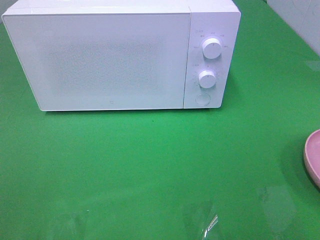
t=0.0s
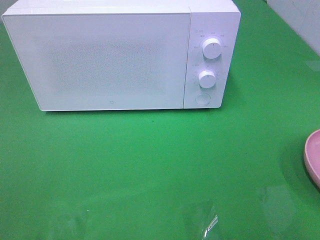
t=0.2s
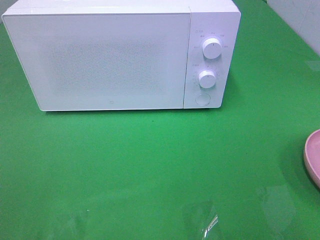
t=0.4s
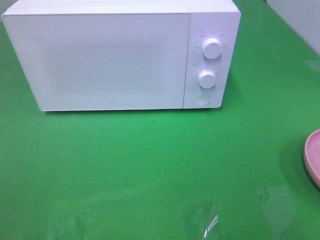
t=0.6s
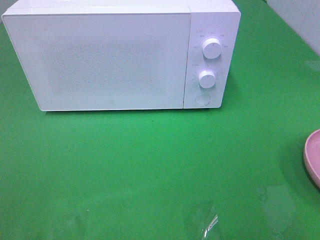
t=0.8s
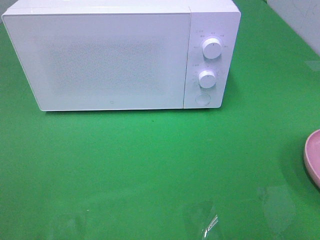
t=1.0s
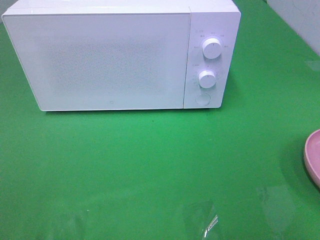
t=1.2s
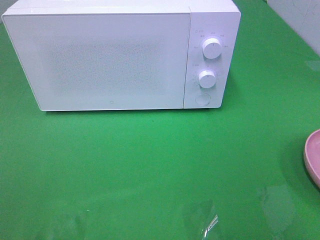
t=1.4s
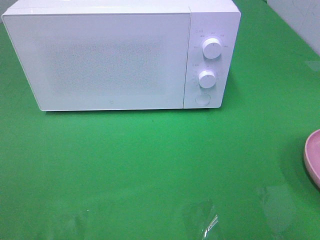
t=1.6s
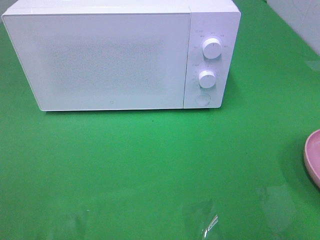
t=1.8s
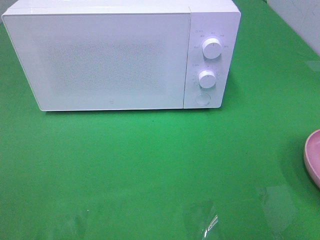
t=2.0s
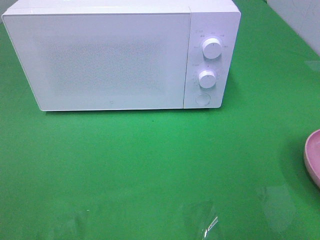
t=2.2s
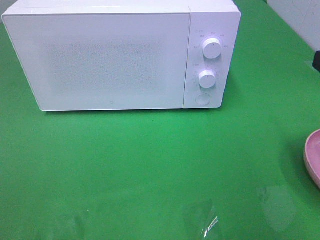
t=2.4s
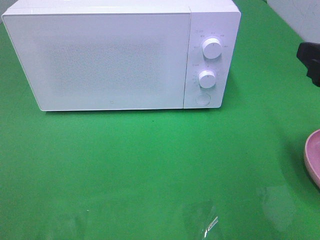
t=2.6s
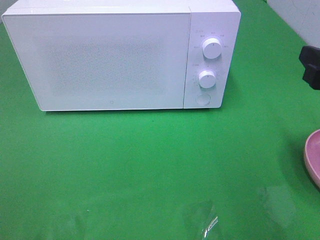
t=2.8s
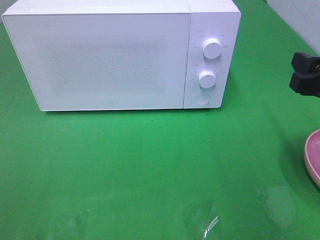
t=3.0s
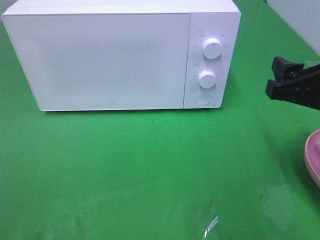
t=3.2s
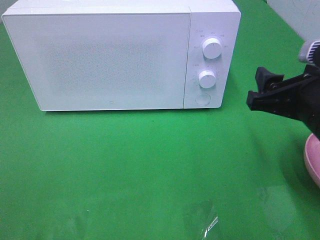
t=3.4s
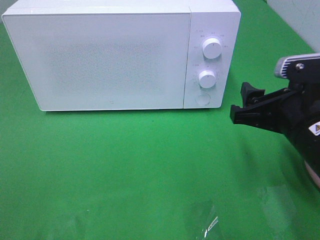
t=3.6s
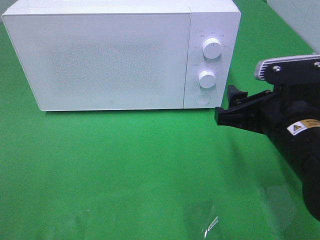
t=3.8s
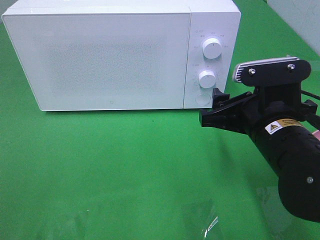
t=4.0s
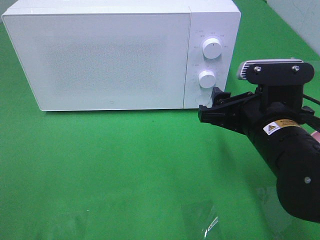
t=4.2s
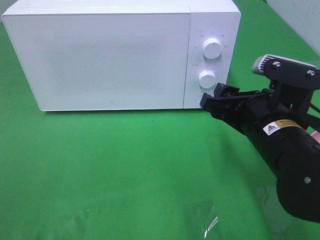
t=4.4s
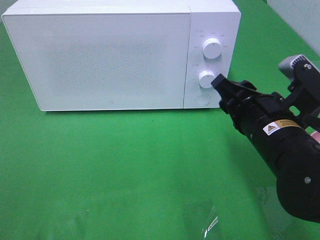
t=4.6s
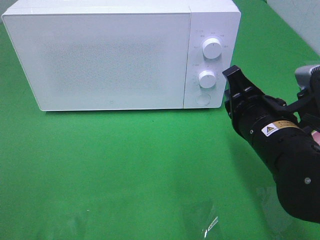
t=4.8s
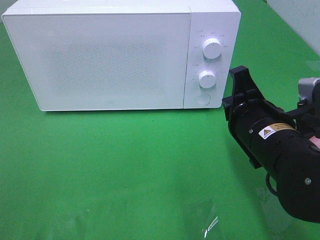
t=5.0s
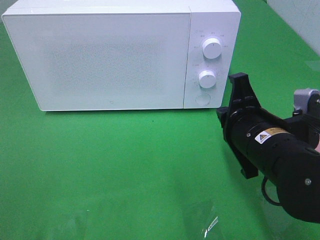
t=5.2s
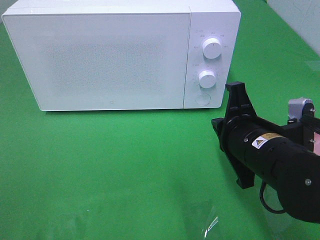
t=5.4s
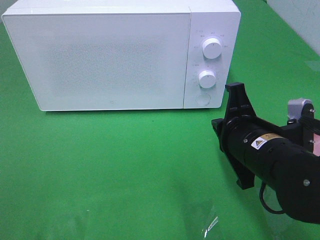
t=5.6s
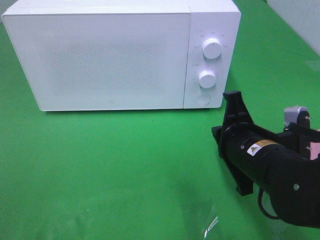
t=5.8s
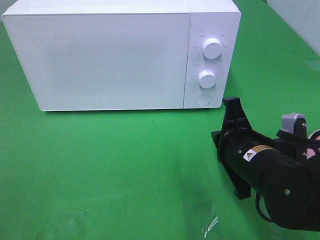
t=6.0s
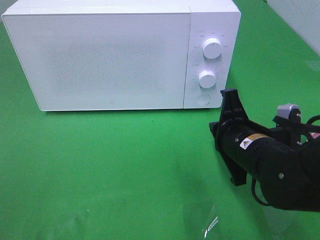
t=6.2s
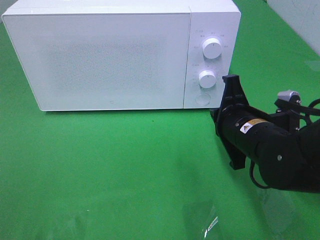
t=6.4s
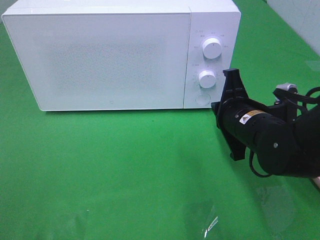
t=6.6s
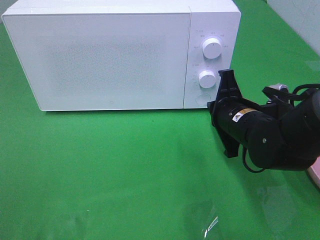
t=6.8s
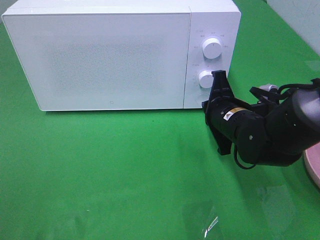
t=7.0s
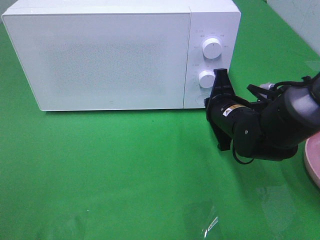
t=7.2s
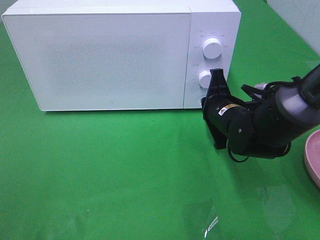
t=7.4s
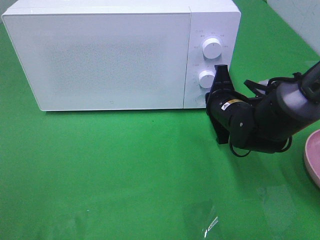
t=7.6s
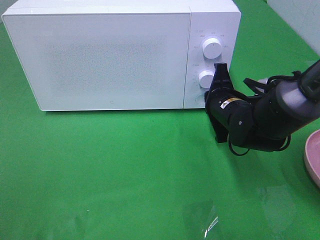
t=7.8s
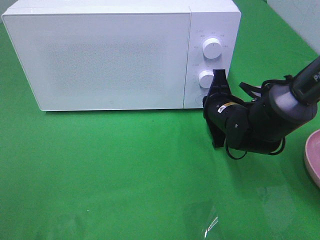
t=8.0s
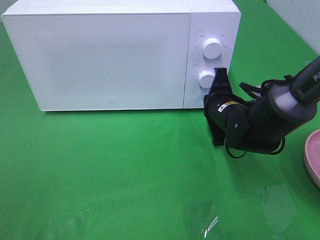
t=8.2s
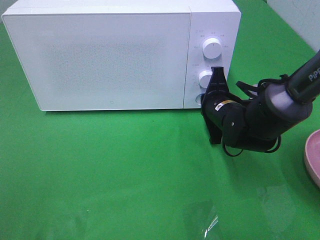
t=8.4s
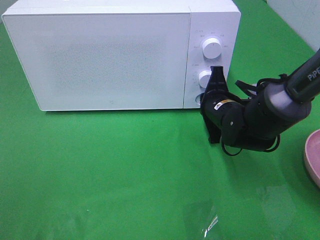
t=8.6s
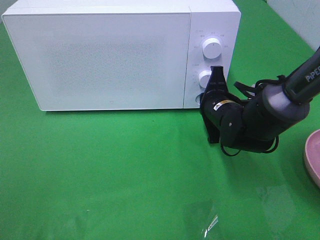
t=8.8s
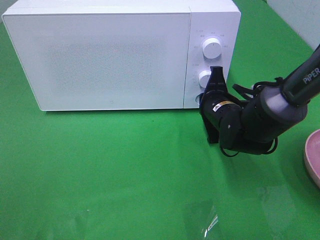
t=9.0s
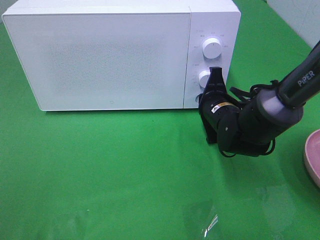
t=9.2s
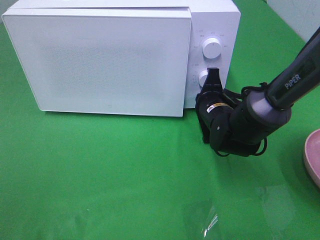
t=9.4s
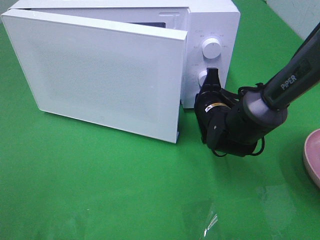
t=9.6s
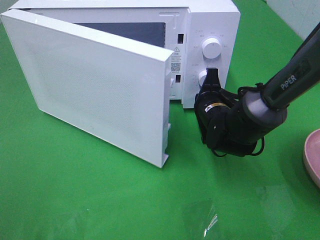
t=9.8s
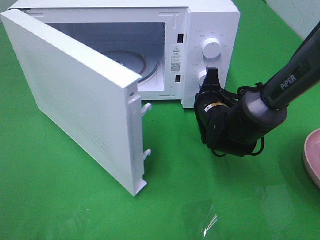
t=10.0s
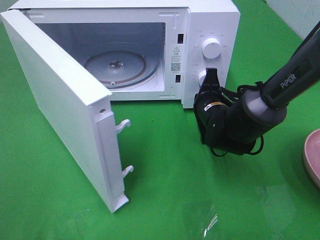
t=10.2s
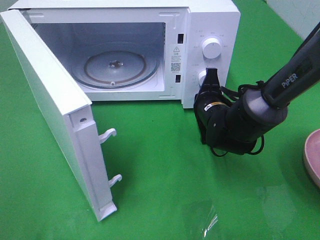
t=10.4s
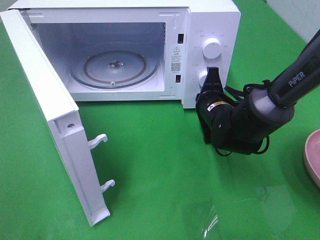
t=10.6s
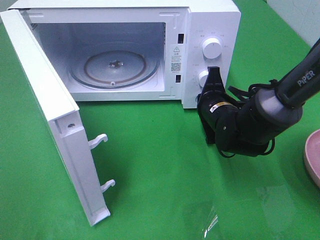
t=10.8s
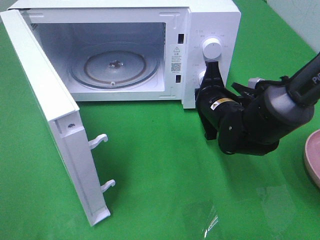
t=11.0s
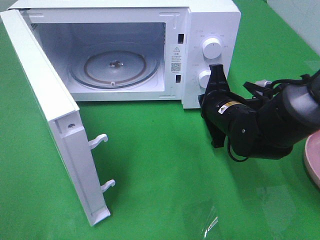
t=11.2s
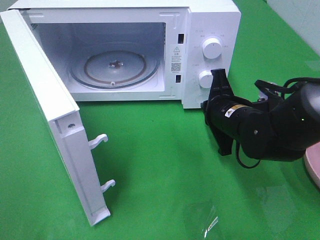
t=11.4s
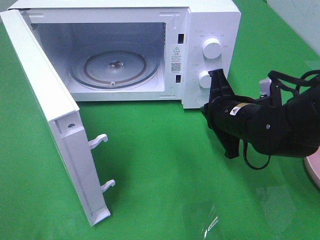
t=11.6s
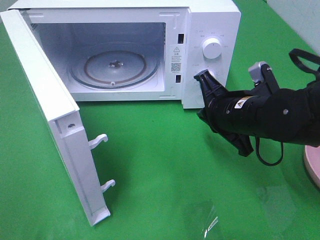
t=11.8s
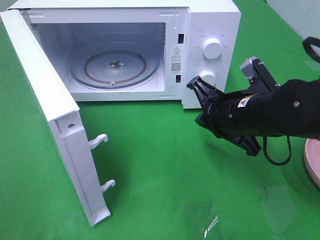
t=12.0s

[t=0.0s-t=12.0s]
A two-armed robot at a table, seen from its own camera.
Task of the whole recording: Heat the burger.
Step, t=0.0s to t=11.4s: Right hand: press the switch.
t=1.6s to t=3.0s: The right gripper is displaced forward and downward by approximately 15 cm.
t=3.0s to t=4.4s: The right gripper goes some 10 cm to the left and downward.
t=4.4s to t=6.0s: The right gripper travels downward by roughly 5 cm, and closes up.
t=6.0s to t=7.6s: The right gripper moves forward, about 10 cm.
t=7.6s to t=9.0s: There are only small adjustments of the grippers.
t=10.4s to t=12.0s: The right gripper moves backward and upward, roughly 10 cm.

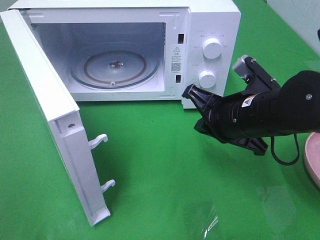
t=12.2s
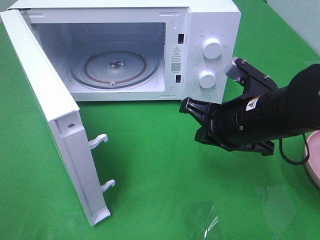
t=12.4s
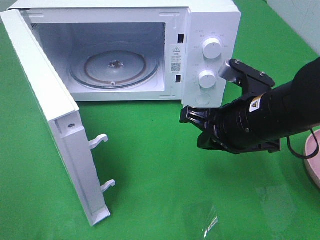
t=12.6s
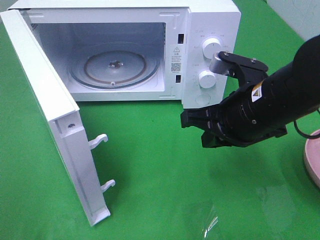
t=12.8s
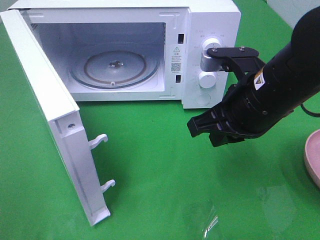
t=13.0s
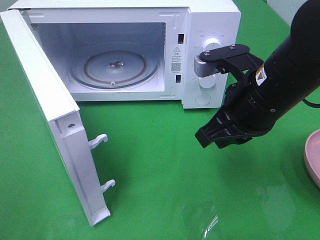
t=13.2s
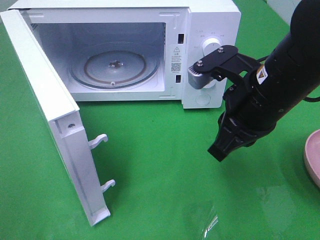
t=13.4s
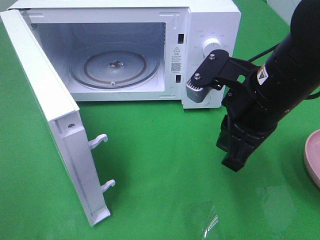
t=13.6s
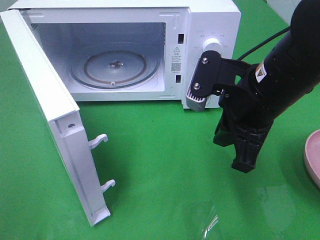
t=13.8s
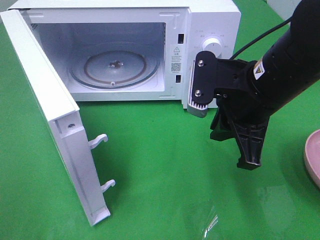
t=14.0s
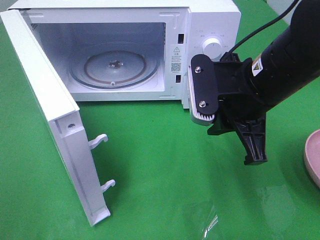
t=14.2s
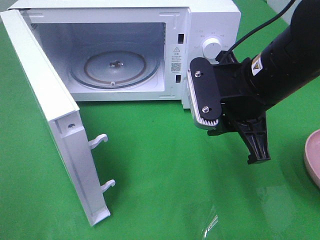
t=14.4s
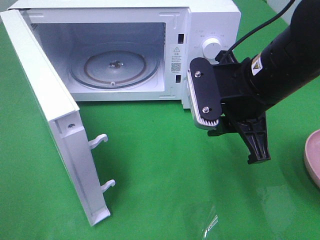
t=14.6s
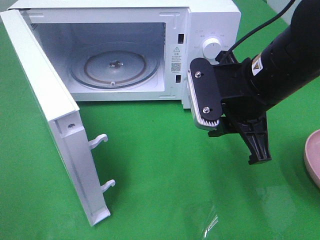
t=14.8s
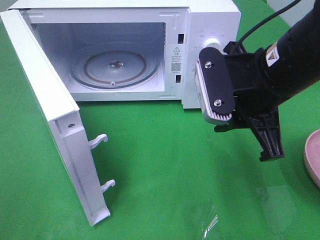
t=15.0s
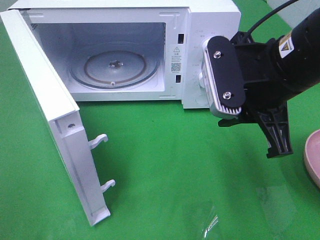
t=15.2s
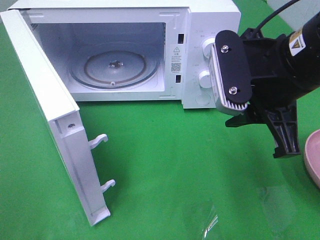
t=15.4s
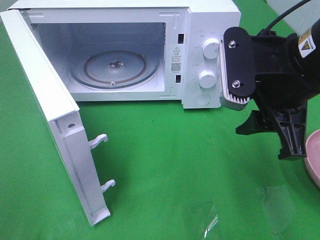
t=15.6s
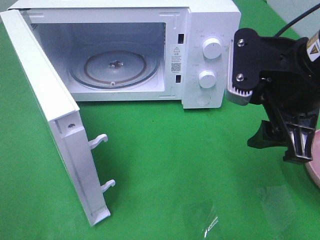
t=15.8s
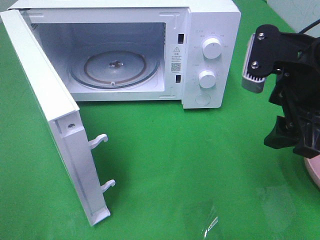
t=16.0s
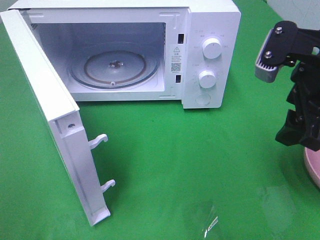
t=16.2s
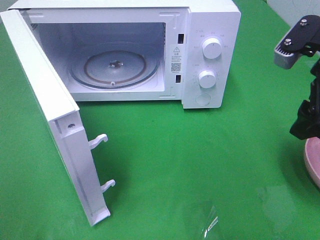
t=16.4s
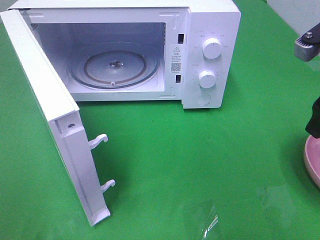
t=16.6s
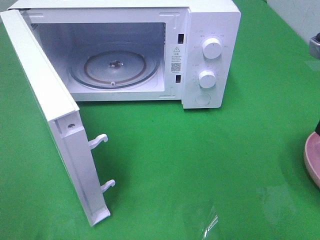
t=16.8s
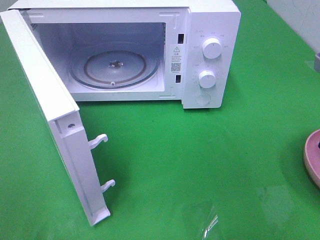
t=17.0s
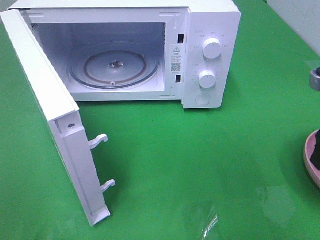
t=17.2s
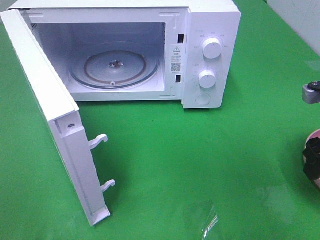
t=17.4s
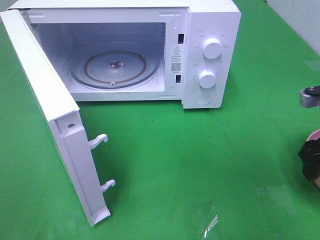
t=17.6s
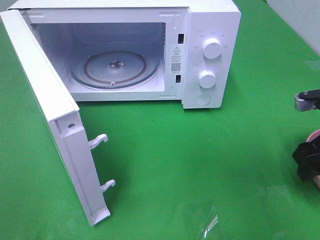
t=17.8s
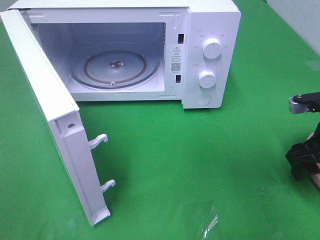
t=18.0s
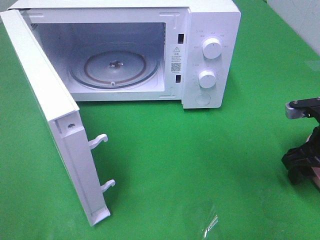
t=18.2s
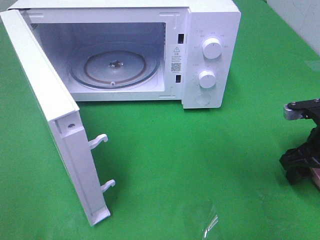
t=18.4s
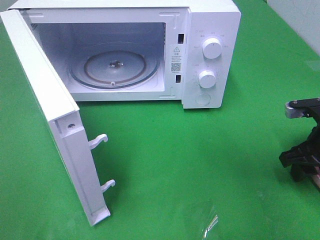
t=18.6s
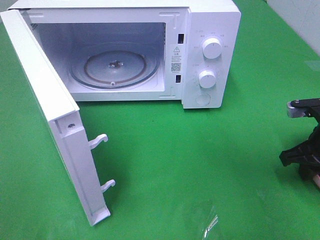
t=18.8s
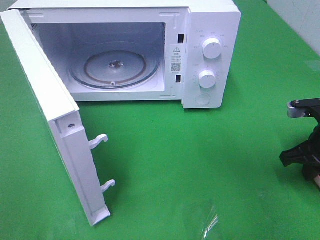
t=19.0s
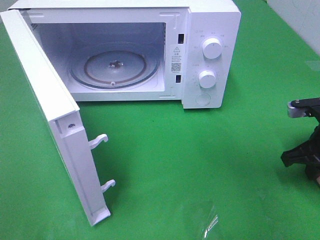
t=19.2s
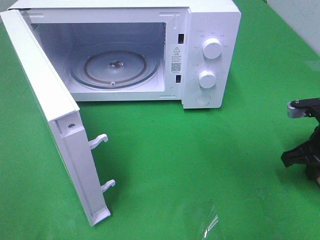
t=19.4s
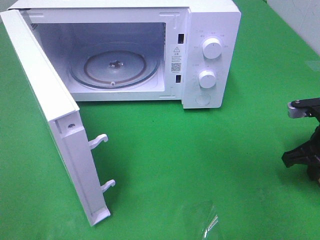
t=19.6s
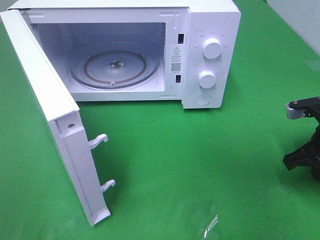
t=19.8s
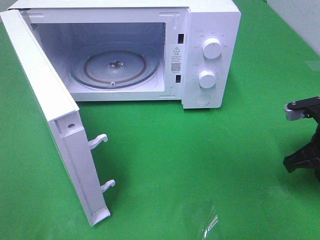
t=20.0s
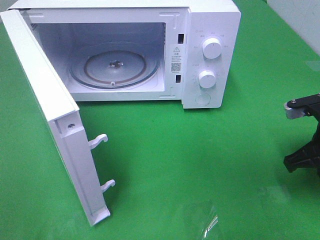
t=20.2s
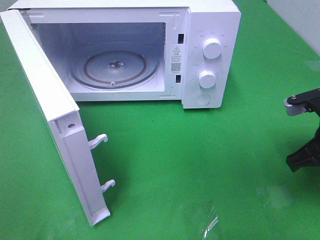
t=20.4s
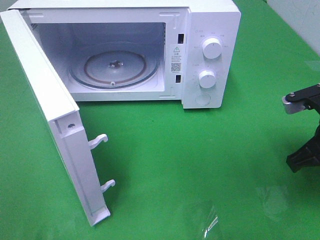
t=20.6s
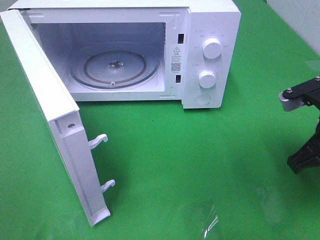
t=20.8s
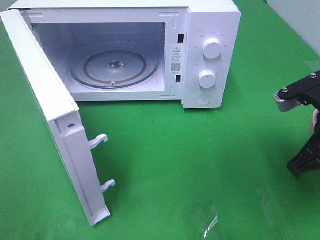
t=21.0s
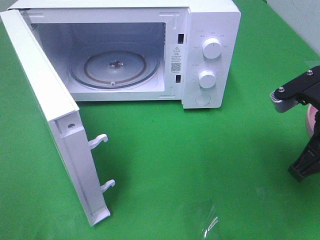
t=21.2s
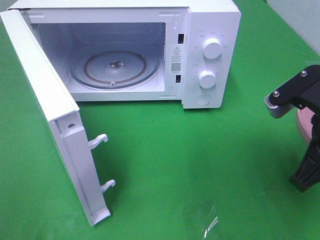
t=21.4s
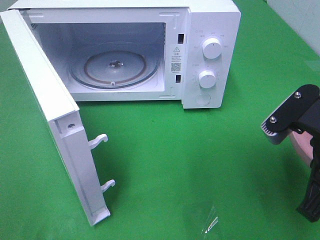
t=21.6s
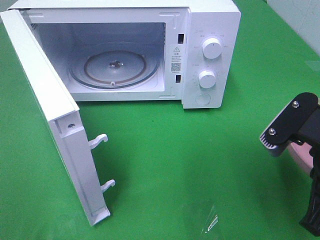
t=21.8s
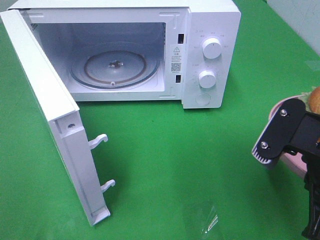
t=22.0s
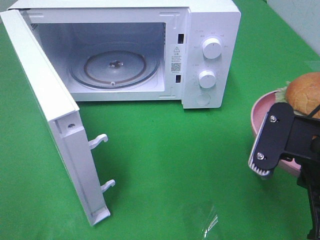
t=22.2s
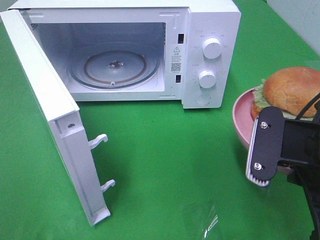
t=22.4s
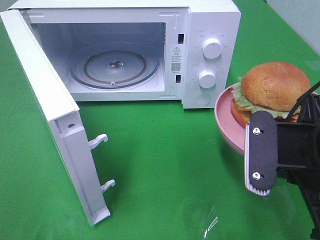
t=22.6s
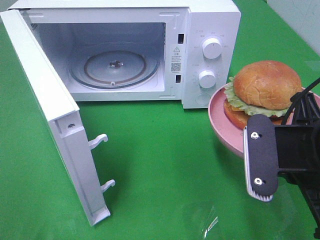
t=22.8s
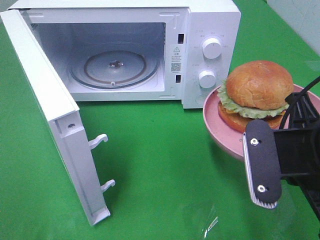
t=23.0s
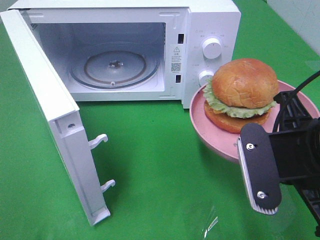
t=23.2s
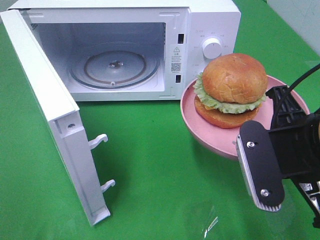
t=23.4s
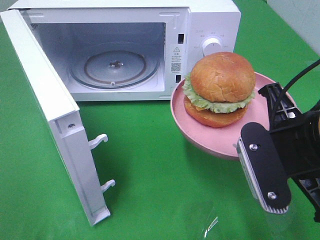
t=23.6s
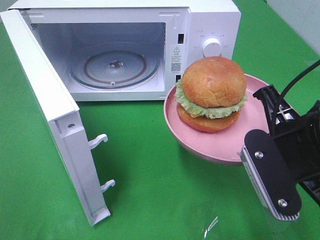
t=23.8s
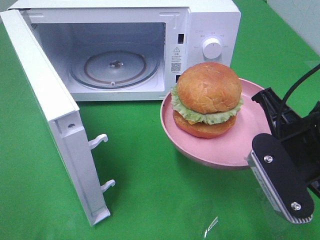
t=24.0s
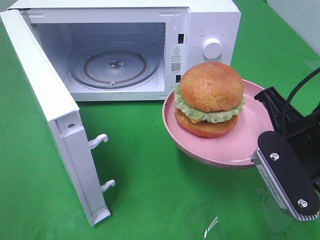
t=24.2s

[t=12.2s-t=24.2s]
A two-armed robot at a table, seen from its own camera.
Task of the whole recording: Heat the burger.
Step, t=12.2s to t=20.0s: Right hand: grab the plate with the hamburger.
t=12.2s to t=13.8s: The right gripper is displaced upward by about 5 cm.
t=15.2s to t=16.6s: The right gripper is displaced to the right by approximately 15 cm, and opens its fingers.
t=16.6s to t=18.2s: The right gripper travels downward by approximately 15 cm.
t=18.2s to t=19.8s: The right gripper closes.
t=19.8s to t=21.2s: The right gripper shifts some 15 cm upward, to the left and backward.
t=21.2s to t=22.6s: The right gripper shifts by some 5 cm.
